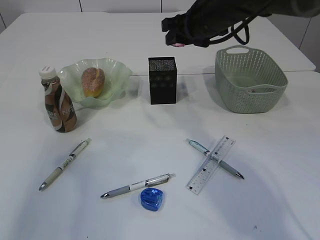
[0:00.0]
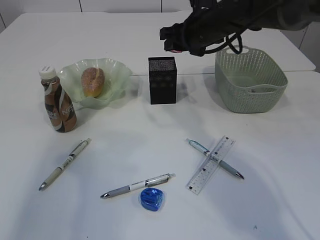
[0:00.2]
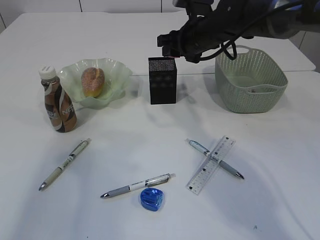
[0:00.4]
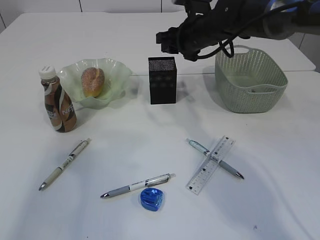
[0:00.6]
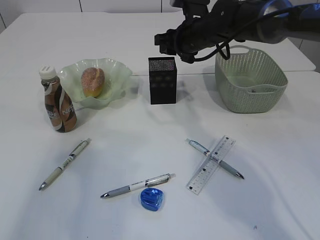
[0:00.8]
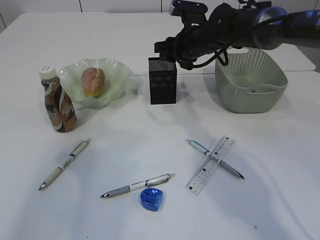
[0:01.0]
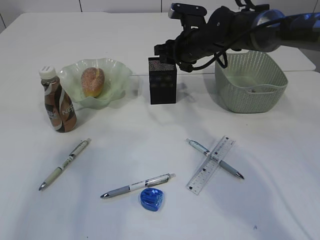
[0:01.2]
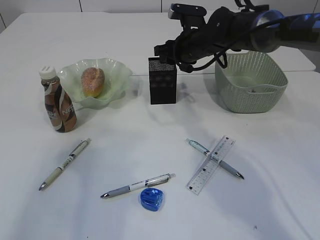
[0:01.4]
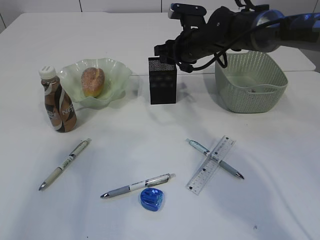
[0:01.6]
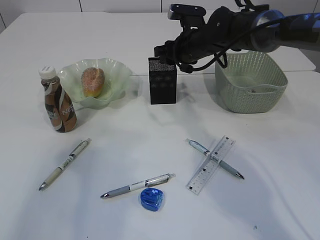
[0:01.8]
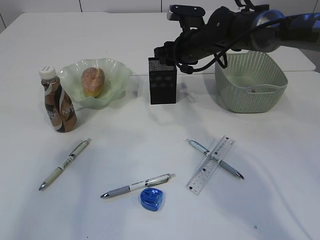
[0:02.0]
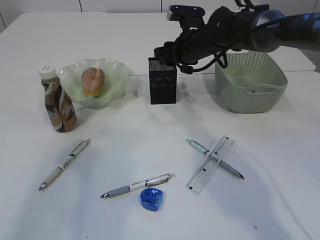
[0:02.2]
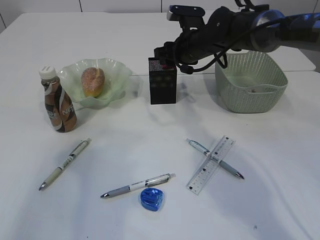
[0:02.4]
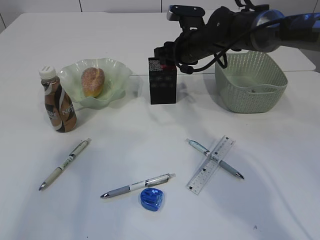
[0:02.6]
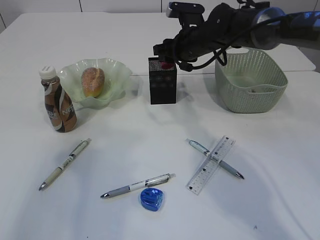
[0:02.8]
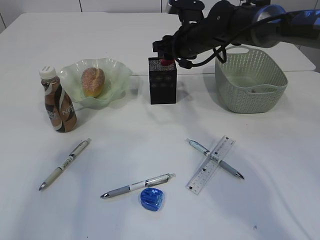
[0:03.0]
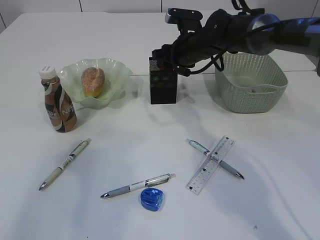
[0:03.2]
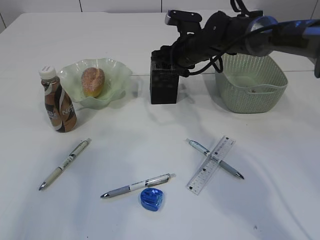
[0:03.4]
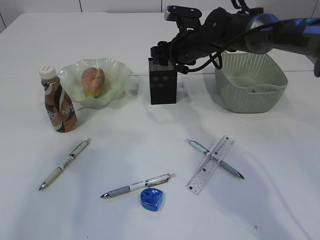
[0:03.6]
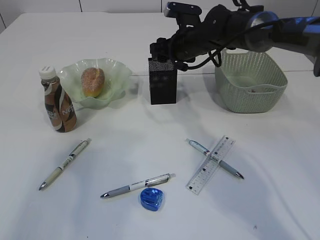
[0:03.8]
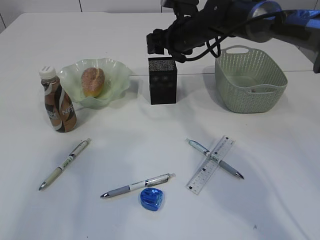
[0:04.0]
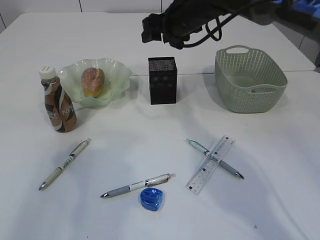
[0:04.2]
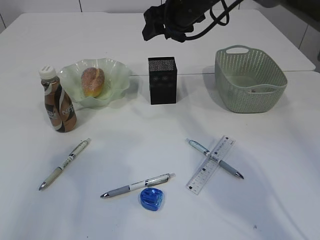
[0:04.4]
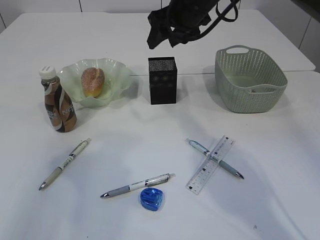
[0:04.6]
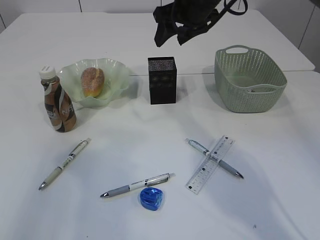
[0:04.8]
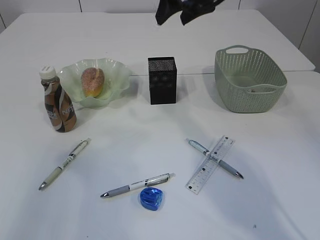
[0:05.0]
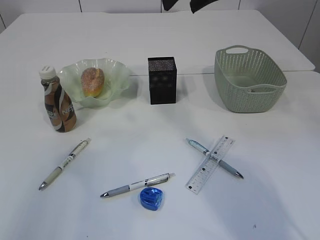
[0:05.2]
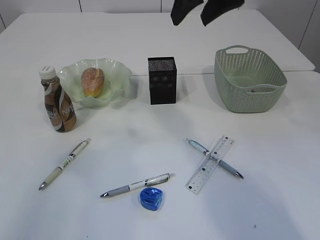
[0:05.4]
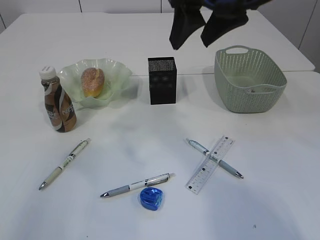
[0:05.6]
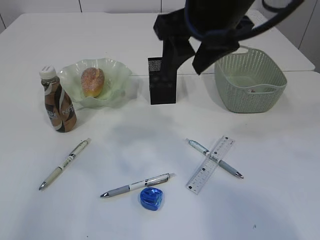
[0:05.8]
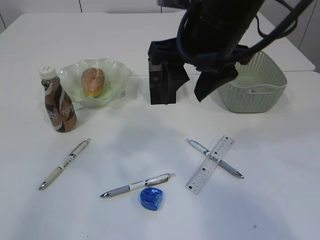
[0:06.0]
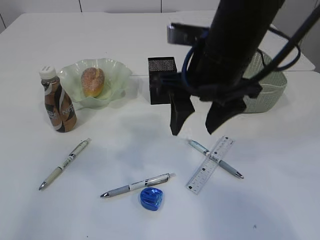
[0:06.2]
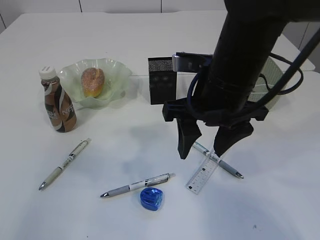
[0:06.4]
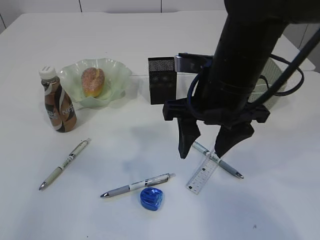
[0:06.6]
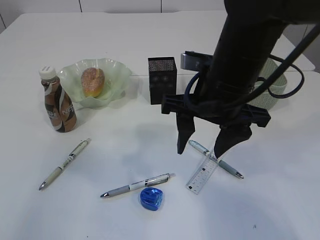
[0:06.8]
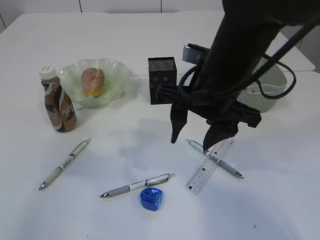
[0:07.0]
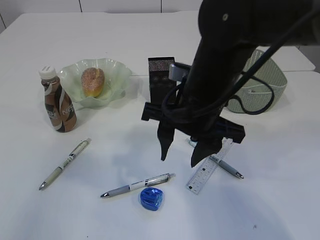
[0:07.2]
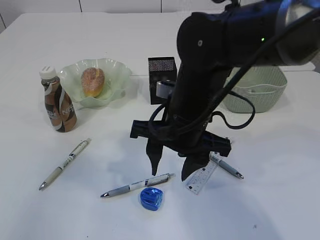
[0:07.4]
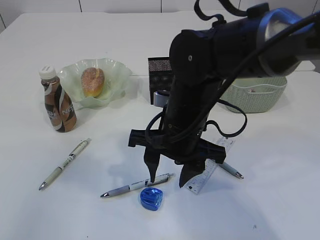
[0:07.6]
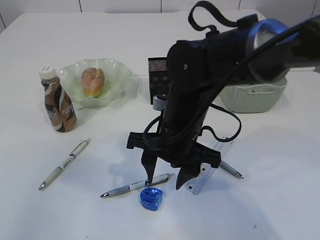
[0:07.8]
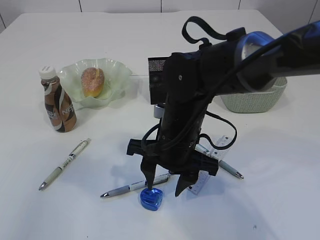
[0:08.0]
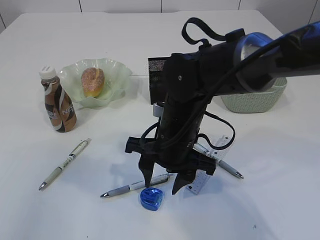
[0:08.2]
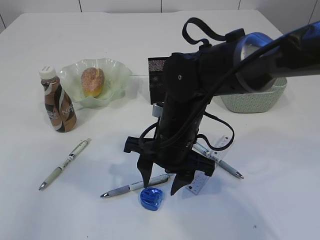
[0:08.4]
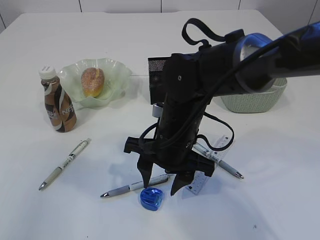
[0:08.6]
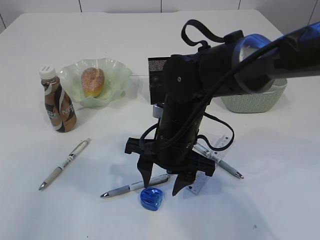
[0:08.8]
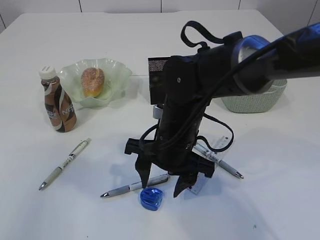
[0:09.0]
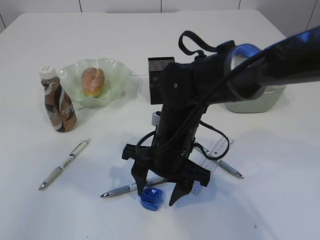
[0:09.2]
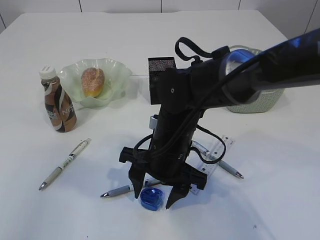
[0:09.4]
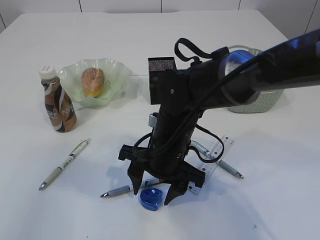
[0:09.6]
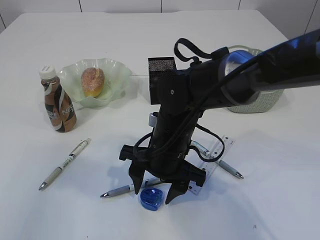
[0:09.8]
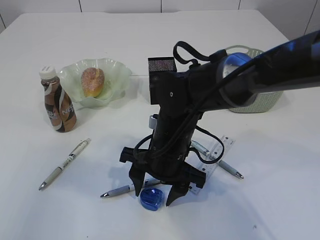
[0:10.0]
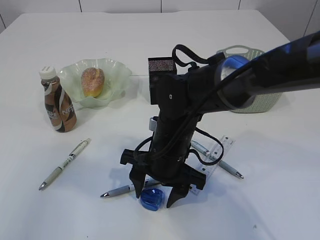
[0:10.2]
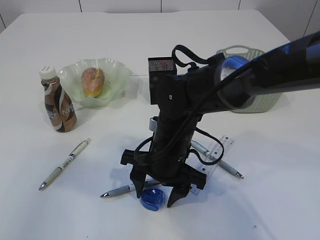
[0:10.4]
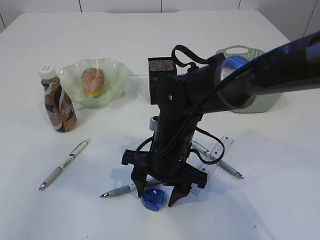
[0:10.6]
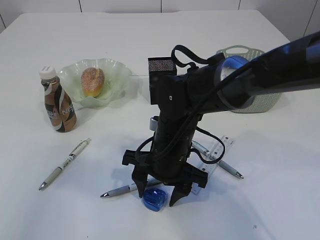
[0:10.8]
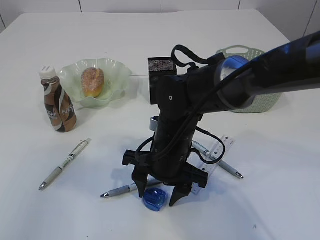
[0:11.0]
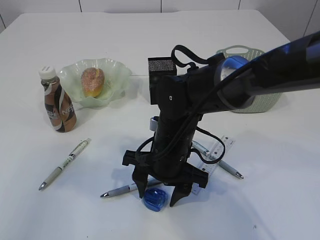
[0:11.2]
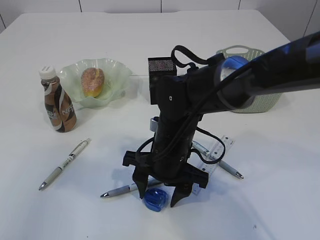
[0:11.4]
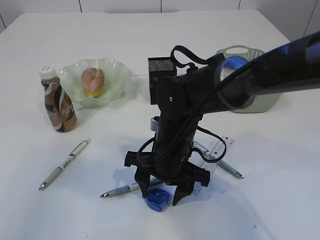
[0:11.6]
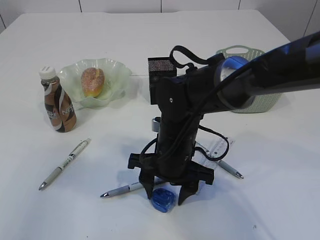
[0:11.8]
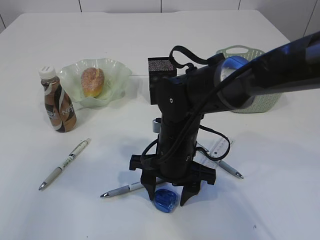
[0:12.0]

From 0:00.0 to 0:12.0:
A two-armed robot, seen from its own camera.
Step, from 0:00.0 to 0:04.2: Place the red pencil sharpener into the pen holder.
From 0:00.0 to 0:01.6: The right gripper moves downward, approximately 5 cm.
From 0:01.6 to 0:03.0: Neither gripper changes place.
From 0:03.0 to 0:04.4: The right gripper is displaced upward by roughly 10 cm.
From 0:04.4 to 0:06.0: The right gripper goes approximately 20 cm backward. The left gripper moves upward, approximately 5 cm.
From 0:06.0 to 0:07.6: The right gripper goes approximately 15 cm downward.
From 0:07.6 to 0:09.0: There are only small adjustments of the grippers.
From 0:09.0 to 0:12.0: The grippers move only a little.

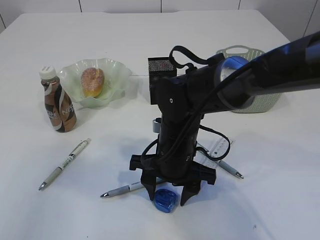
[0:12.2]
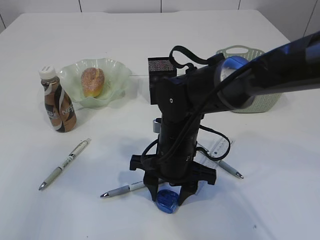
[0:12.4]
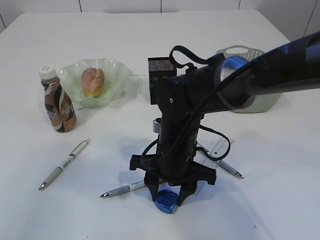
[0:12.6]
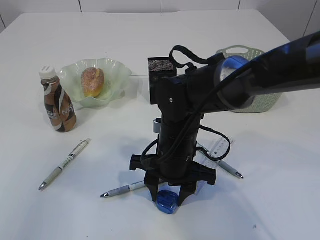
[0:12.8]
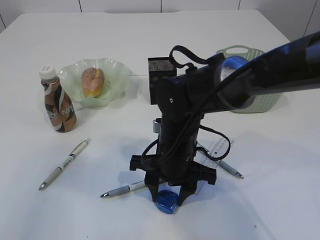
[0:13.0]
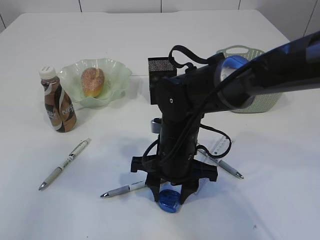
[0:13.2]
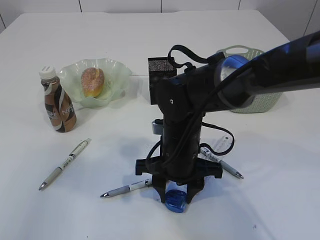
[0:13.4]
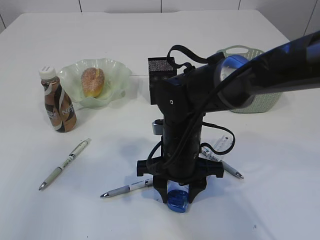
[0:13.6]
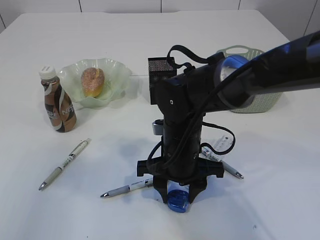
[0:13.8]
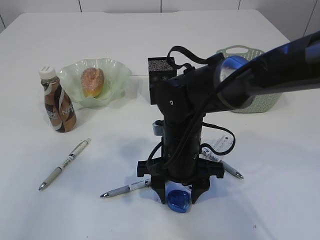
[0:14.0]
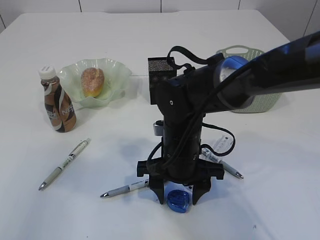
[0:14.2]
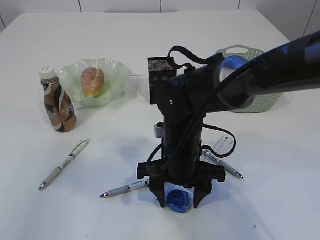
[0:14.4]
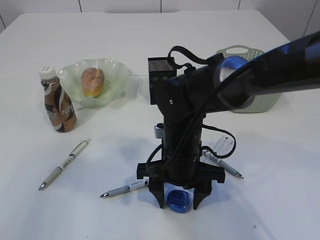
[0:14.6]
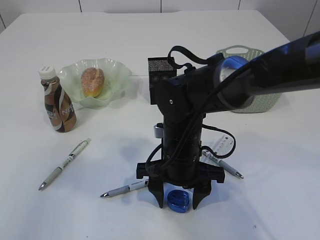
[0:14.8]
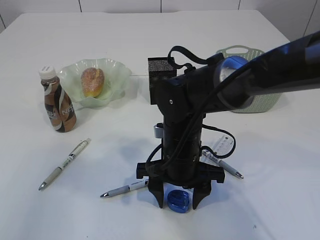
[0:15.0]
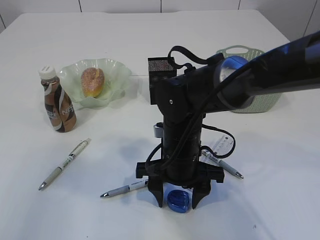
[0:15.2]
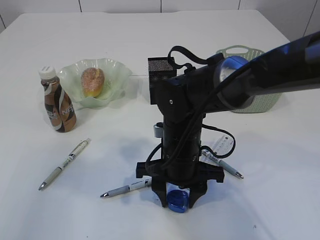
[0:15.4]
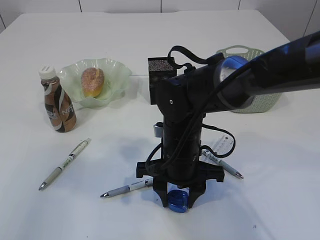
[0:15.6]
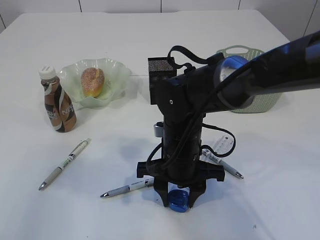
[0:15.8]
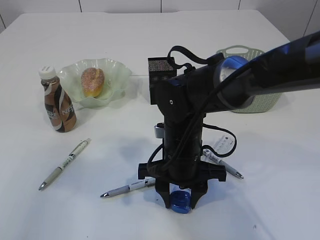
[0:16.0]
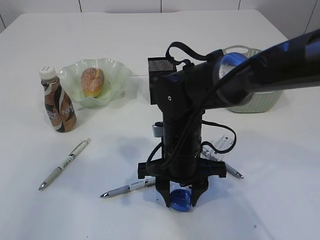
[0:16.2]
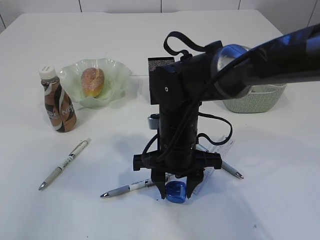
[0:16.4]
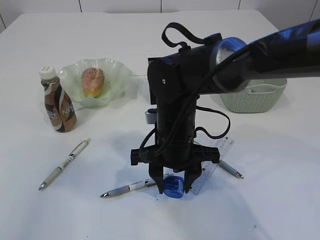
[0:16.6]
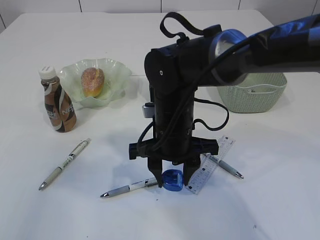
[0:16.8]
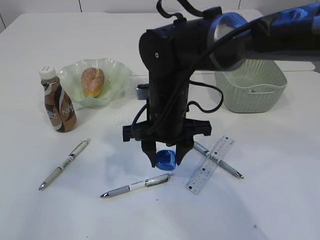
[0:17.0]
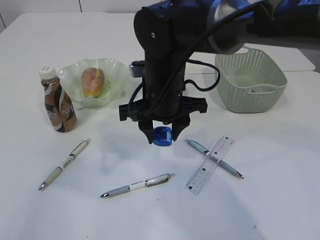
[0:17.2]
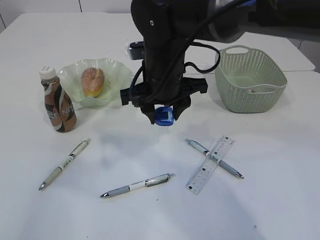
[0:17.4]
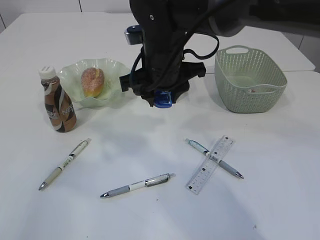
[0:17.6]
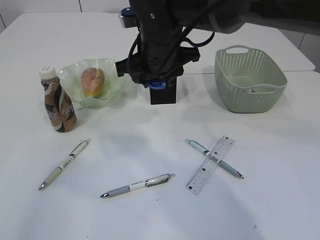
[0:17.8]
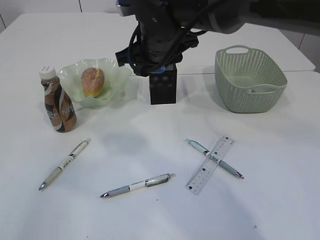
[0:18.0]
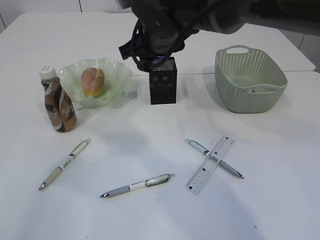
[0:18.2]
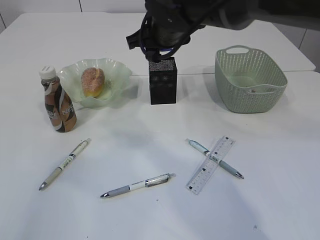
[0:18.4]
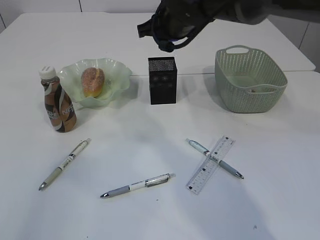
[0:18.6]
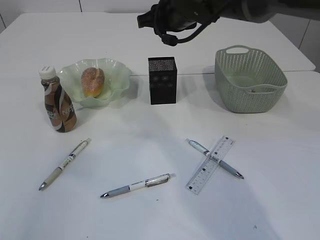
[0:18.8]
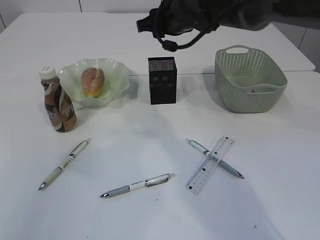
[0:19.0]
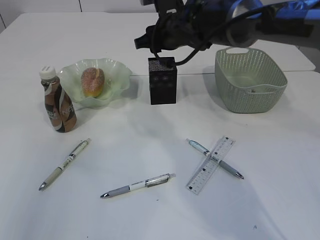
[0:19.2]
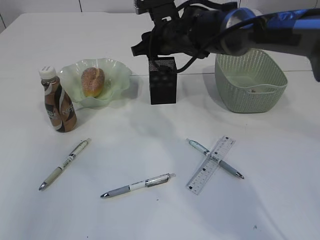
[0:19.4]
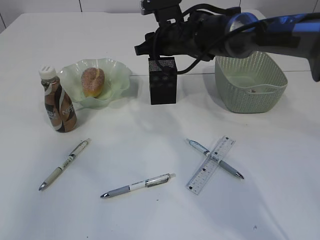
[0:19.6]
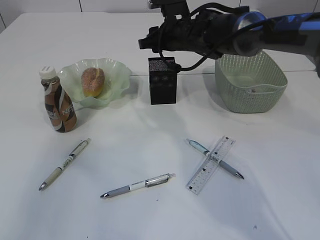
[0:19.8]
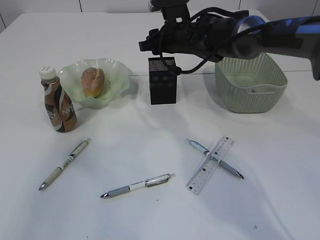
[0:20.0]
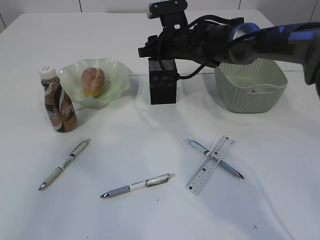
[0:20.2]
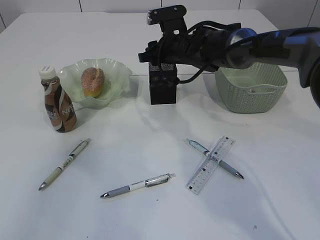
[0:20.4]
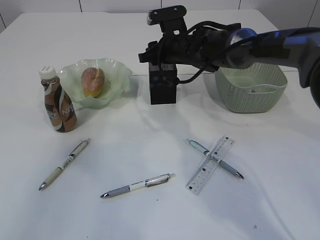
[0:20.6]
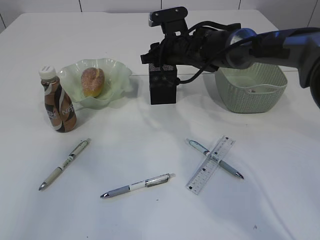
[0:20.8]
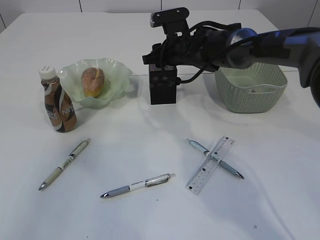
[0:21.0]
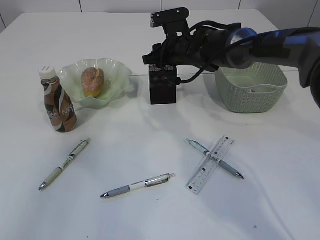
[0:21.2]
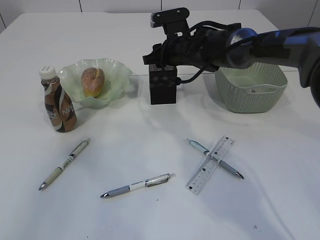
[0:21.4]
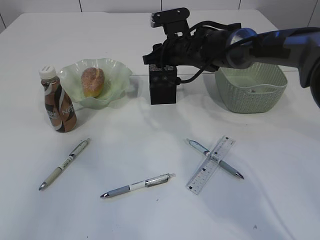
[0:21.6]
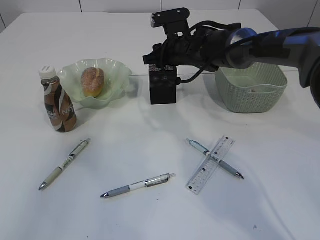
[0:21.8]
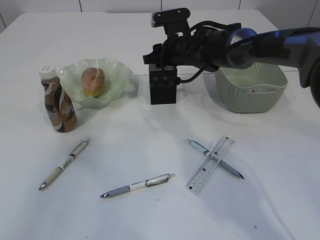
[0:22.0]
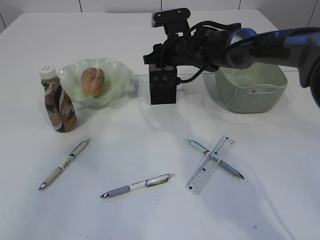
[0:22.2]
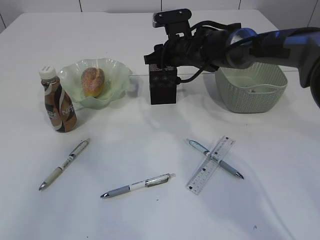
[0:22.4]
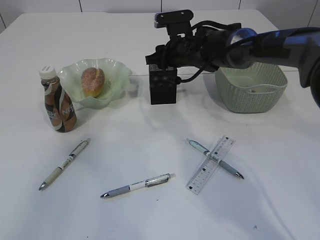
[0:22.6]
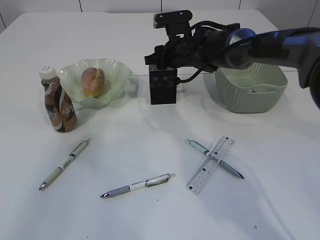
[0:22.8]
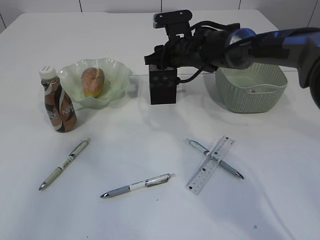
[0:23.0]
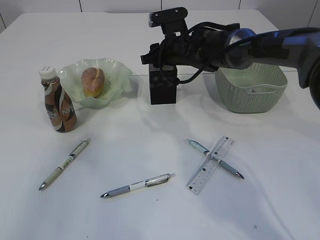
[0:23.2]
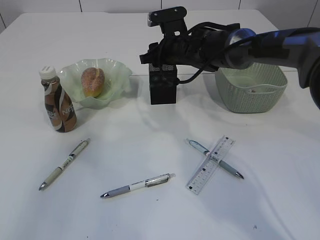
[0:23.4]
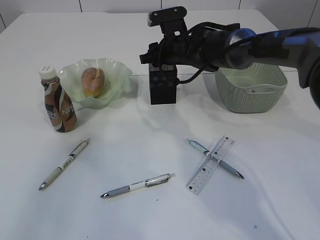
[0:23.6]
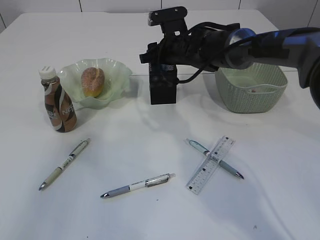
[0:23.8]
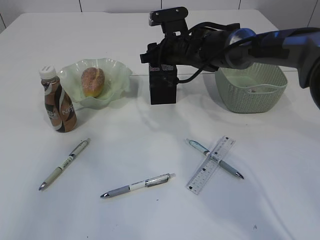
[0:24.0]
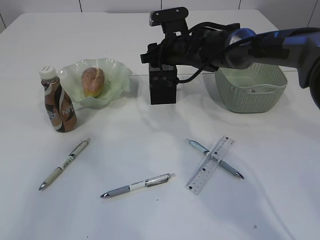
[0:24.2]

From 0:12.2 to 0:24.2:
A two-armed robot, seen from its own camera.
Step, from 0:12.2 to 0:17.0: Pick up the blue pencil sharpener.
From 0:12.2 to 0:13.8: The grippers move only a little.
From 0:13.8 to 0:15.2: The two grippers keep their place.
From 0:15.2 to 0:16.6: There are only small adjustments of the grippers.
From 0:16.6 to 0:18.2: The right gripper shifts approximately 15 cm upward and forward.
From 0:18.2 to 0:19.8: The right gripper shifts approximately 10 cm forward, downward and to the right.
From 0:19.8 to 0:21.2: The grippers make only small movements.
From 0:21.2 to 0:22.6: The two grippers keep their place.
From 0:22.6 to 0:24.2: The grippers move only a little.
